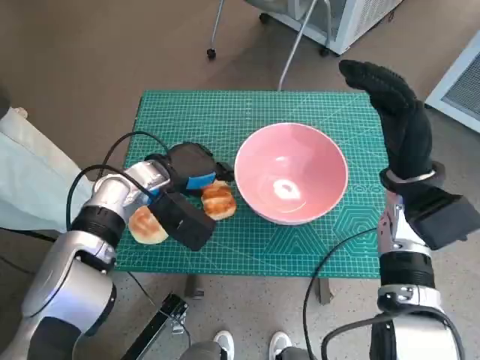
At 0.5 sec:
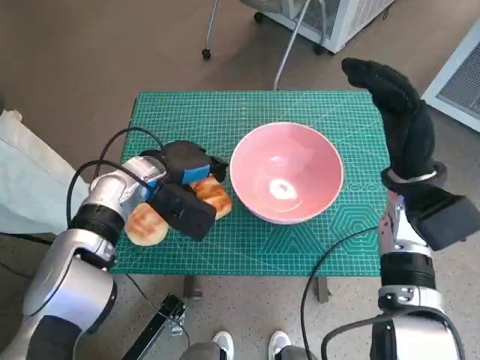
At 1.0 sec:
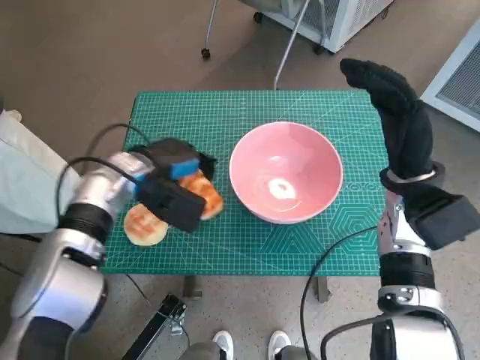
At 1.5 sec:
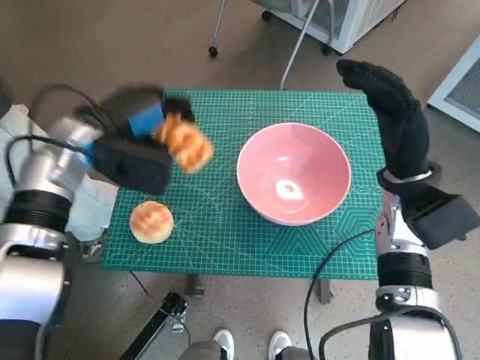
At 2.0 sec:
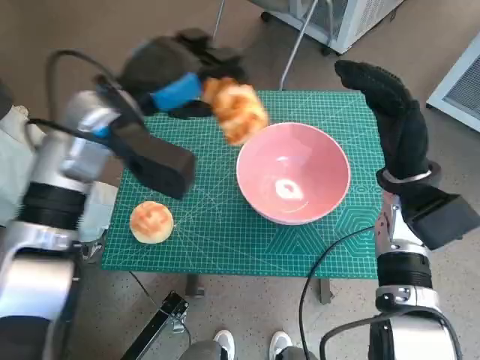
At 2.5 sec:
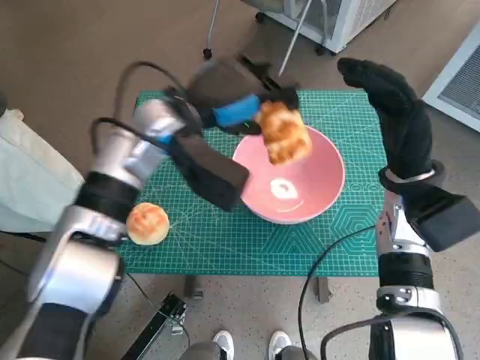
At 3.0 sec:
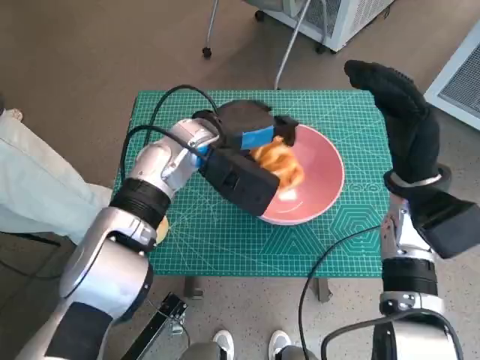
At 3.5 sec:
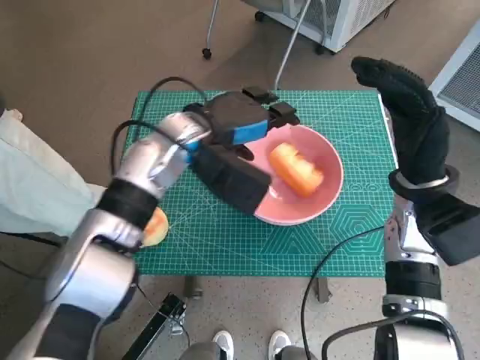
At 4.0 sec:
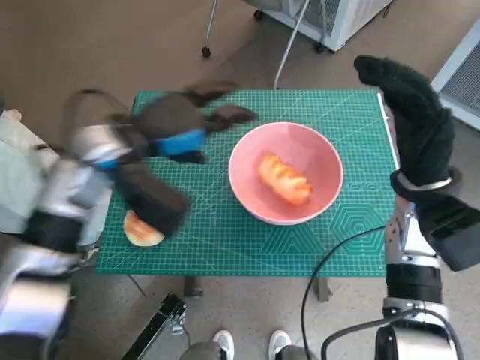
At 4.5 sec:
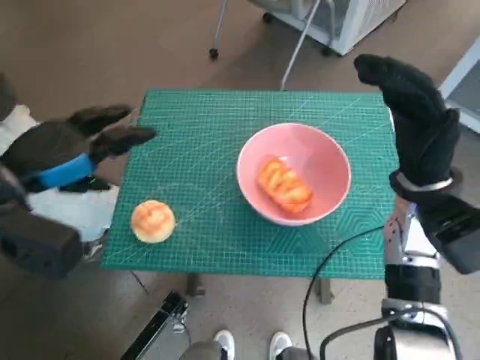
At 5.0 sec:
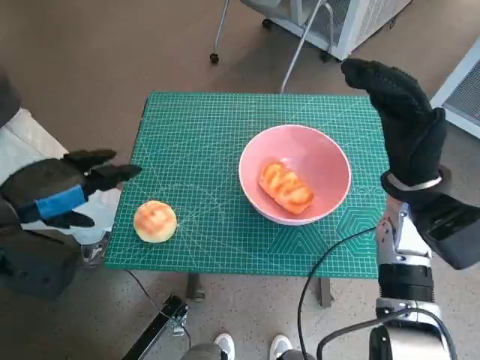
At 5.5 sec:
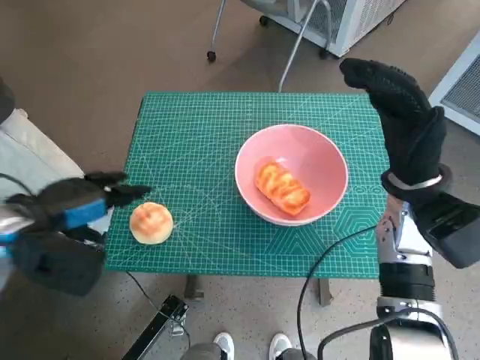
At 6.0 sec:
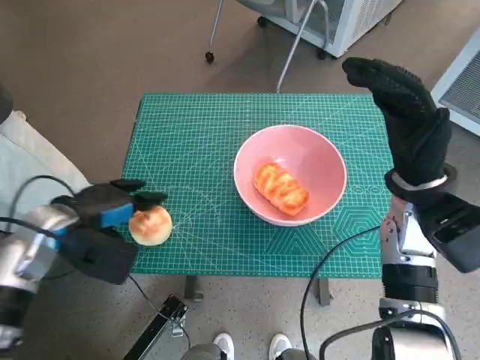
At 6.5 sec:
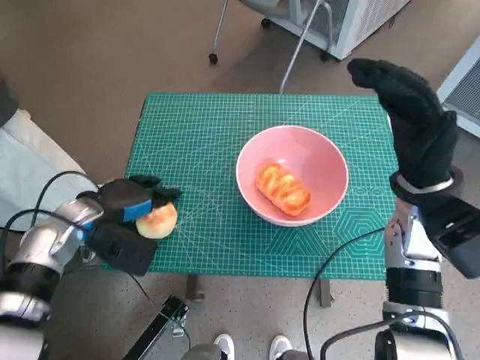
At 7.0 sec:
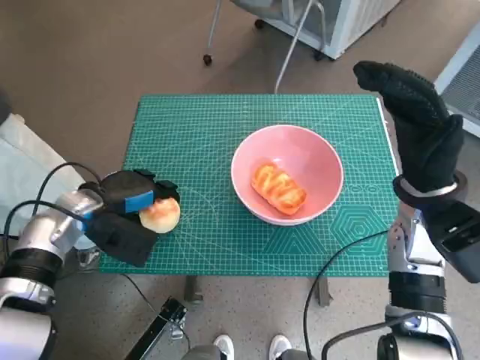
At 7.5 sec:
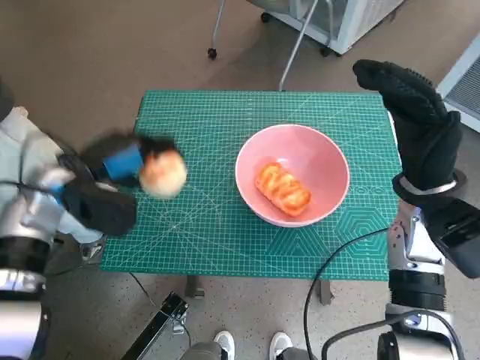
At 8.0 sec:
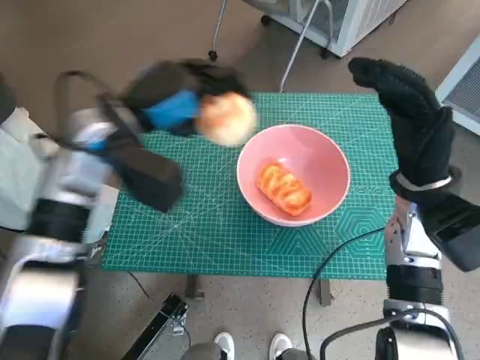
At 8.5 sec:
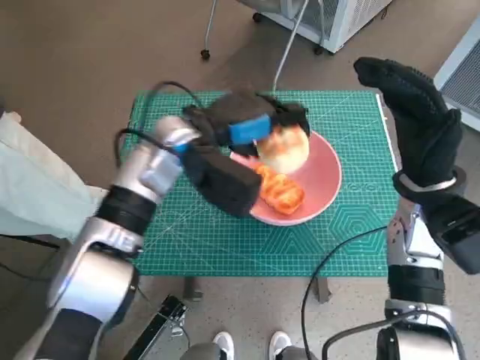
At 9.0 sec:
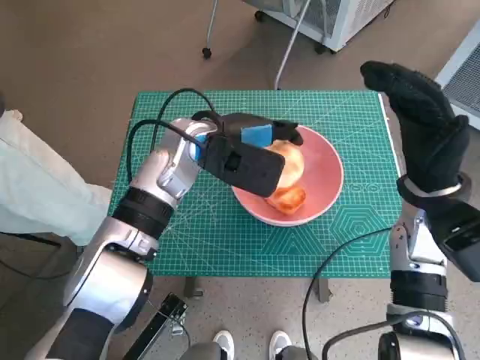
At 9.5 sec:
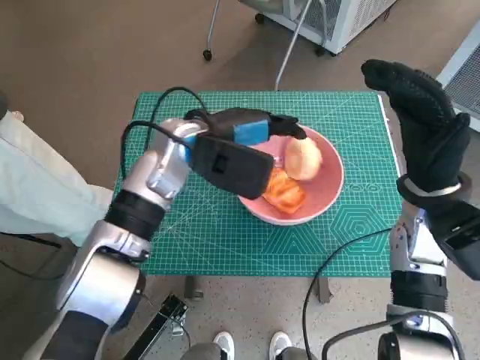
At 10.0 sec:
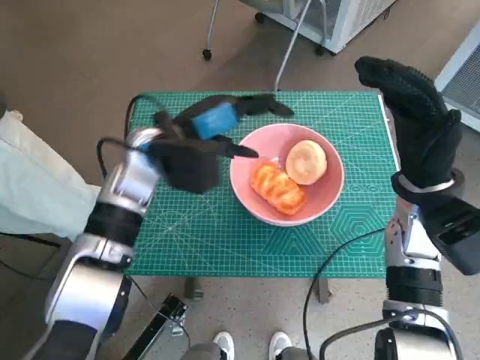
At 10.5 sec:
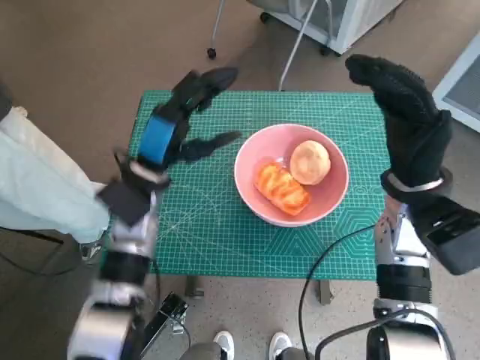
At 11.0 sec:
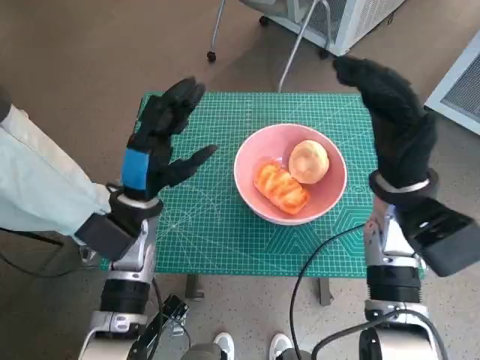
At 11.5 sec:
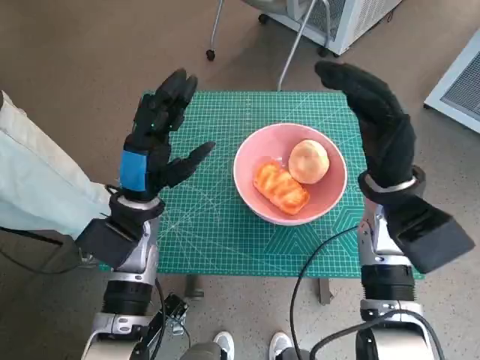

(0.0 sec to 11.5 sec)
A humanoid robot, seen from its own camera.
Task of the whole recording: Push the bowl to the center of the table and put the bread into the bowl.
Step, 1.0 sec - 3.5 sec: Place the long bread in pink bowl with left hand.
Step, 4.0 sec - 7.0 sec: Grasp the round bread with left hand.
Step, 7.5 sec - 9.5 sec: Place the round bread in pink bowl with left hand.
0.0 sec - 2.0 sec: The left hand shifts roughly 15 cm upward.
2.0 sec - 4.0 sec: The left hand travels to the right and back again, approximately 10 cm each way.
4.0 sec - 6.0 sec: The left hand is displaced to the left, downward and backward by some 15 cm.
6.0 sec - 7.5 sec: The left hand ends up about 5 cm from where it was.
7.5 sec - 9.5 sec: The left hand shifts approximately 15 cm to the right.
9.5 sec - 11.5 sec: The left hand moves downward, to the left and backward, about 15 cm.
